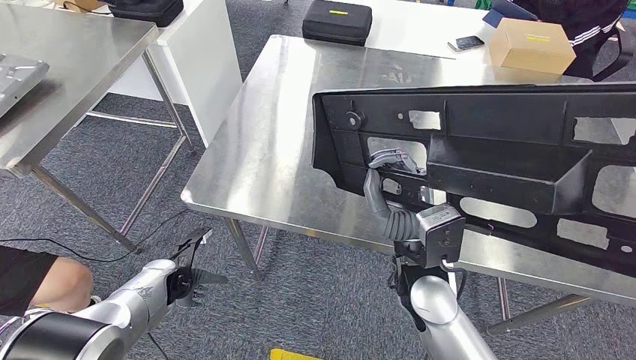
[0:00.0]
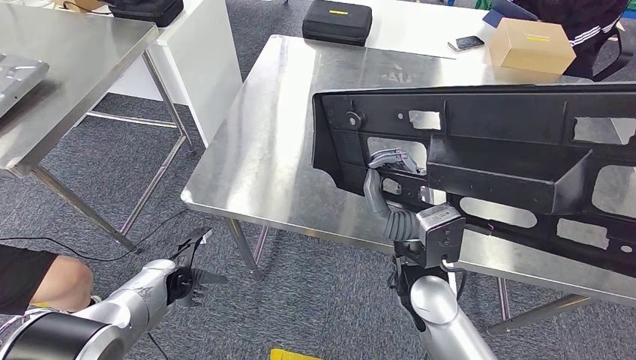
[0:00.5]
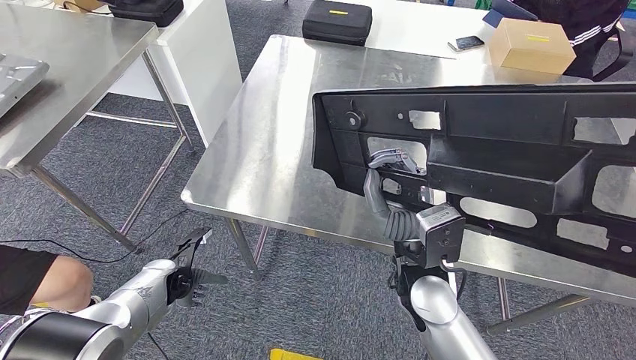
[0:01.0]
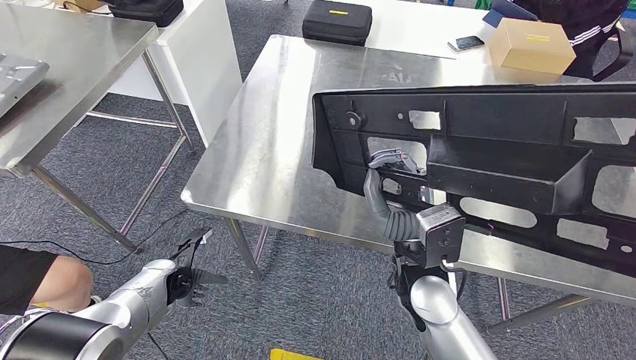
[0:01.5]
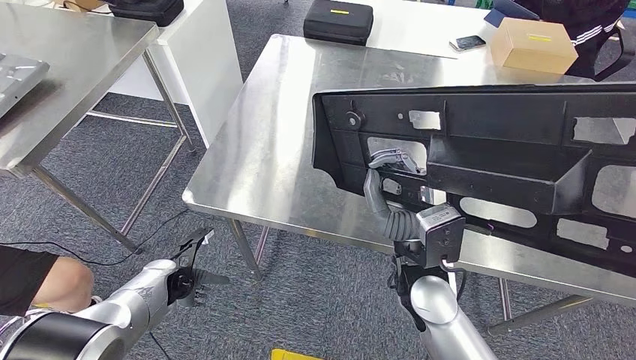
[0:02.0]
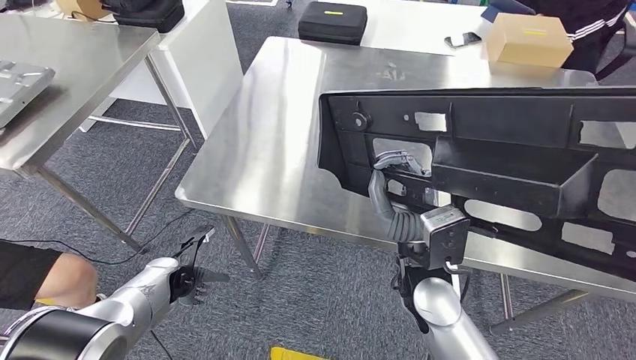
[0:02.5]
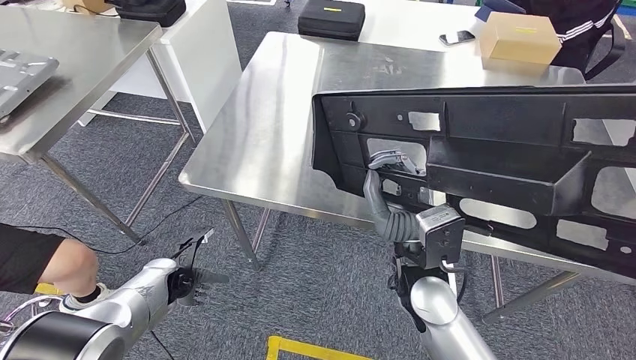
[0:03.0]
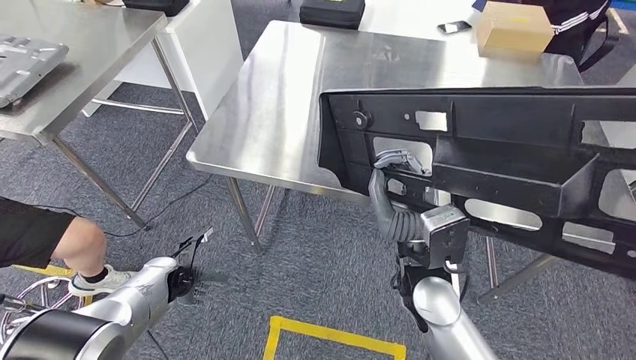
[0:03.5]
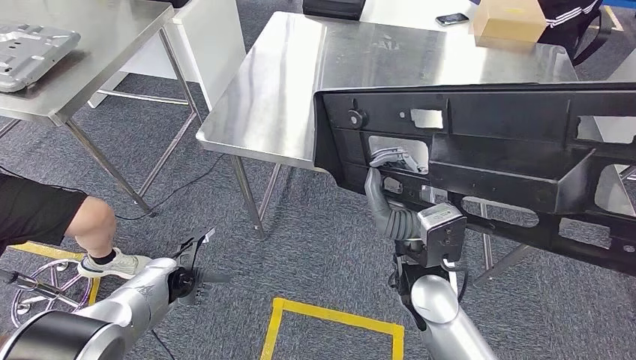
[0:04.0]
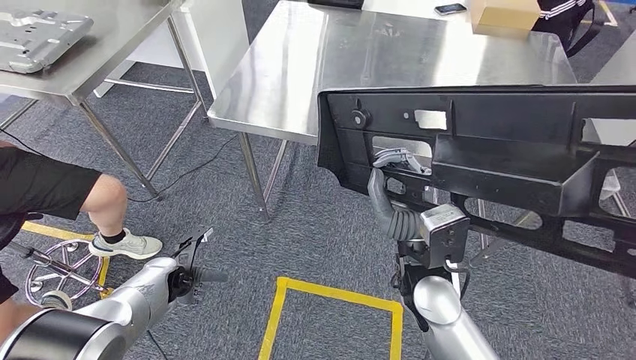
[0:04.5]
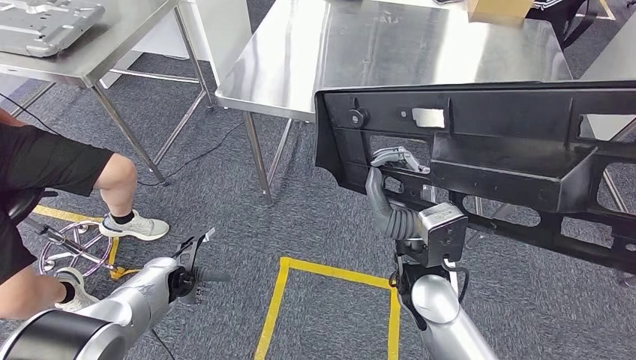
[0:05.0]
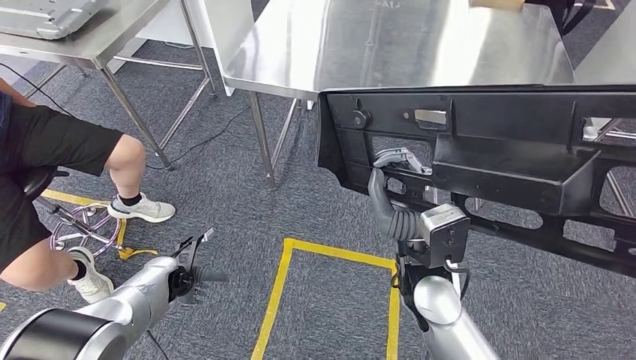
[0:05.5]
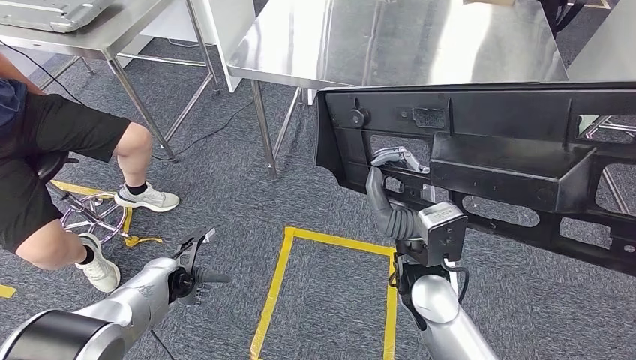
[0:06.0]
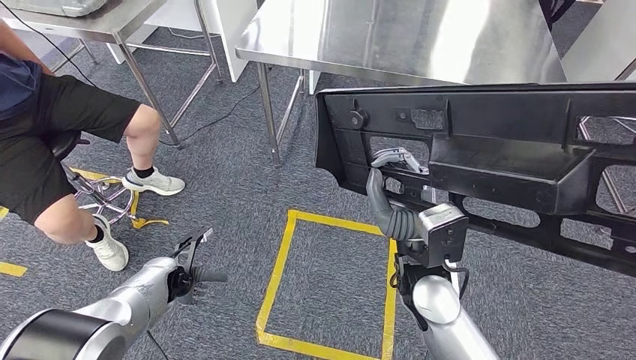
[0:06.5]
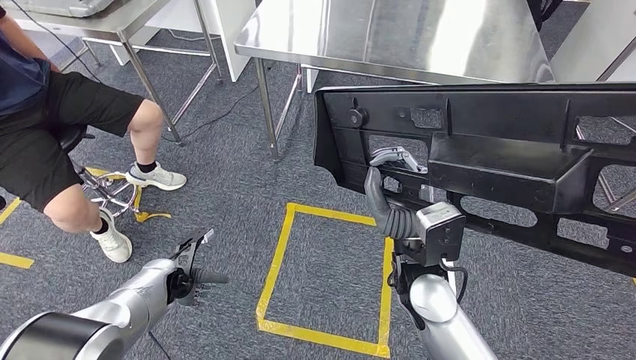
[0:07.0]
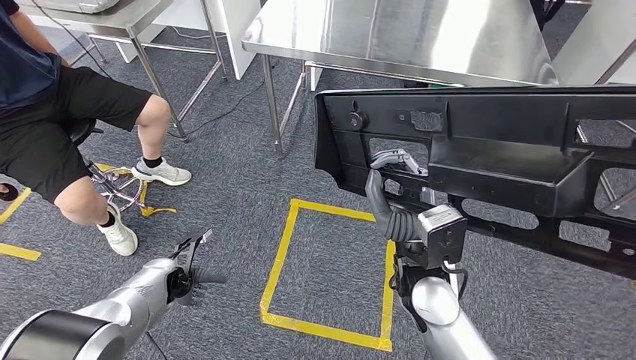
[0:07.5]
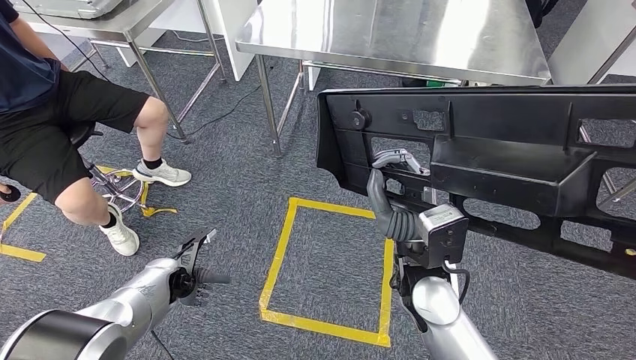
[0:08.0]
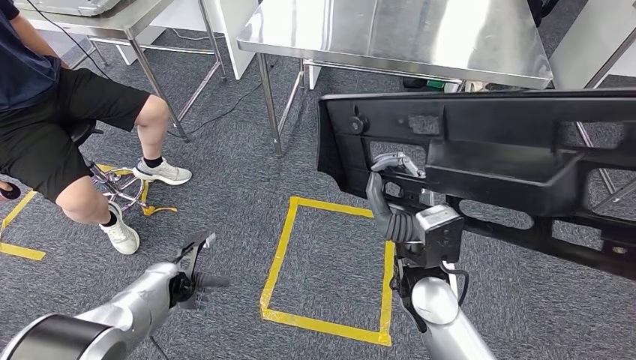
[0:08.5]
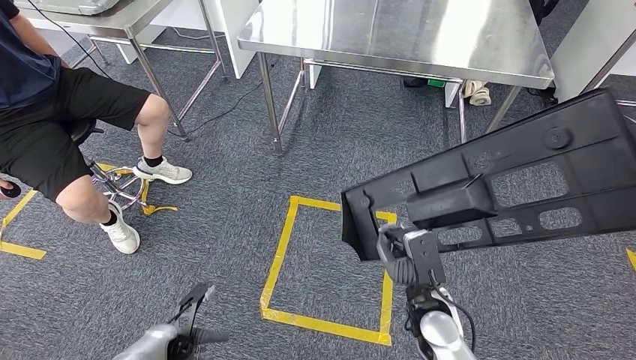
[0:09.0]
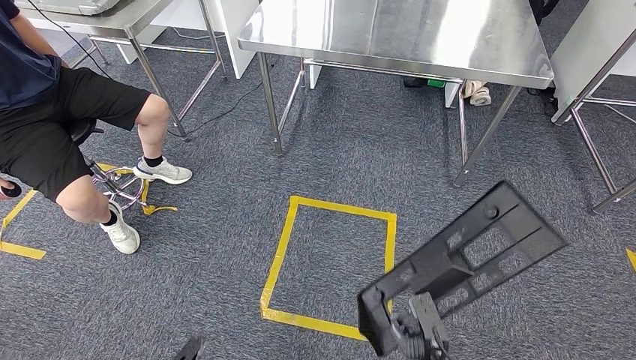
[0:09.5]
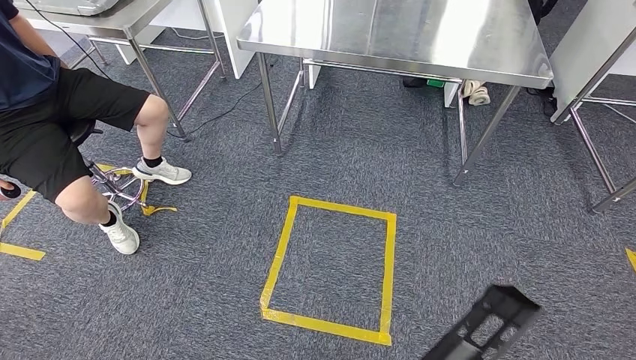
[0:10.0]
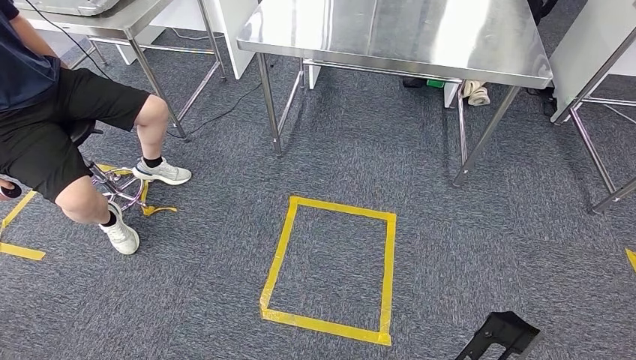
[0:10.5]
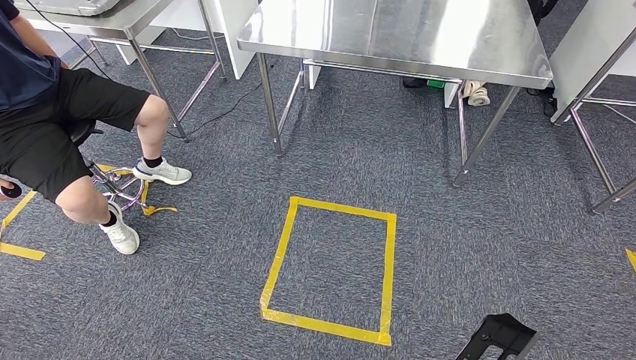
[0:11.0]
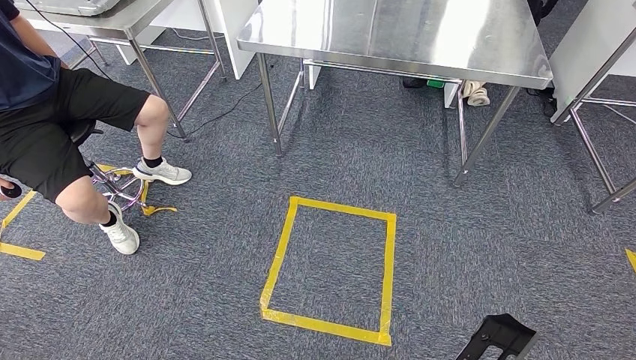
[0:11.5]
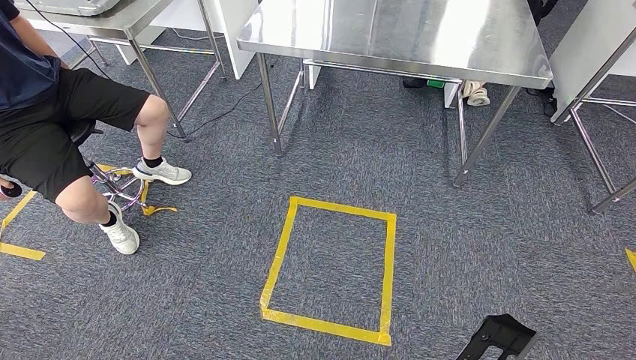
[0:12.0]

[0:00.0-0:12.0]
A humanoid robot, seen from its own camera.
0:00.0 to 0:02.0: Both hands stay about where they are.
0:10.0 to 0:12.0: The hands stay close to where they were, moving slightly.

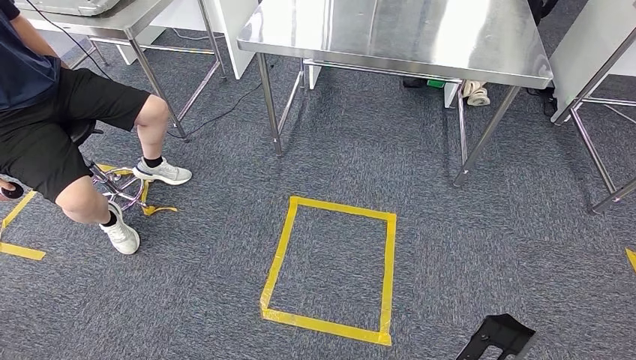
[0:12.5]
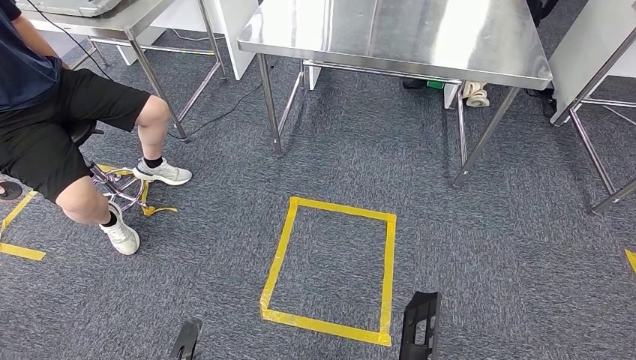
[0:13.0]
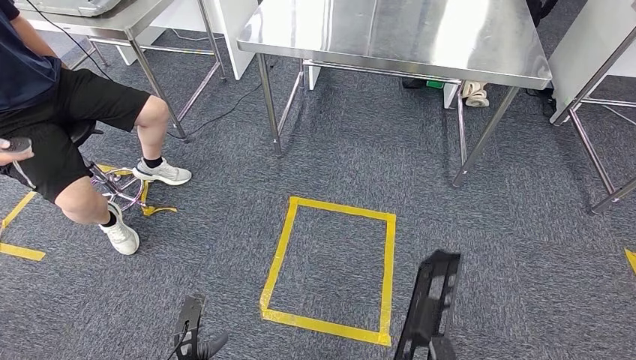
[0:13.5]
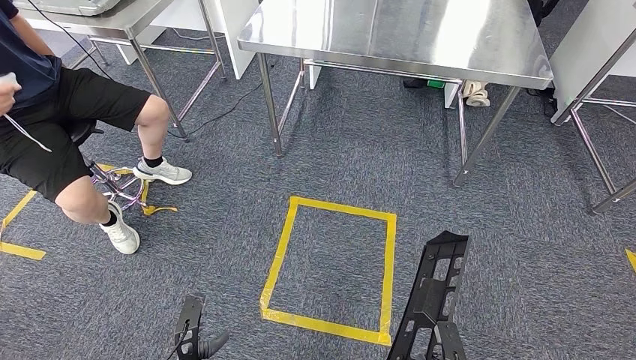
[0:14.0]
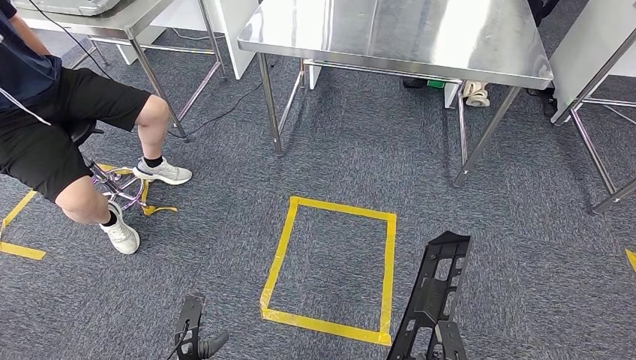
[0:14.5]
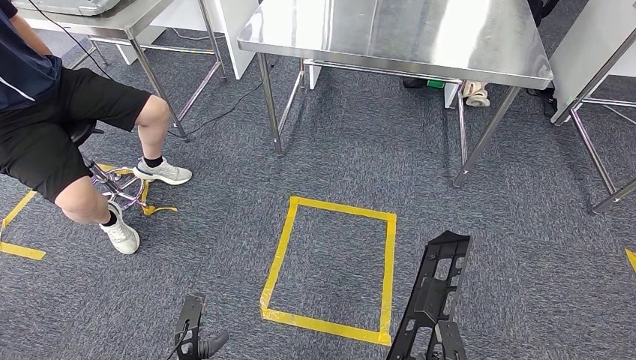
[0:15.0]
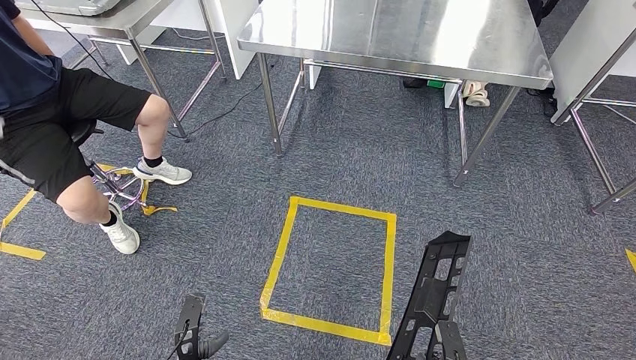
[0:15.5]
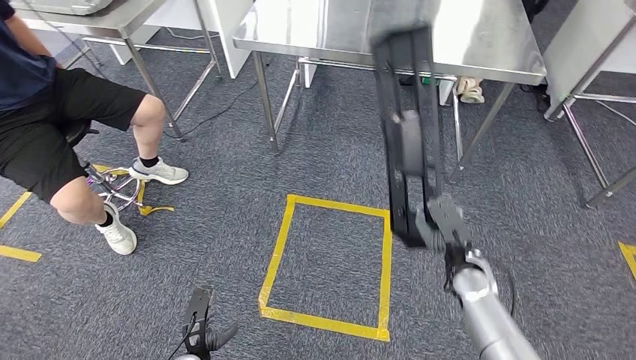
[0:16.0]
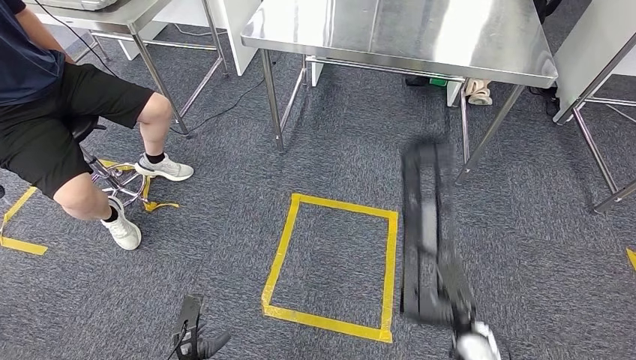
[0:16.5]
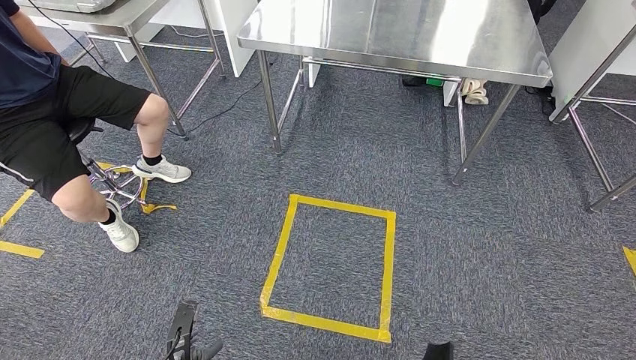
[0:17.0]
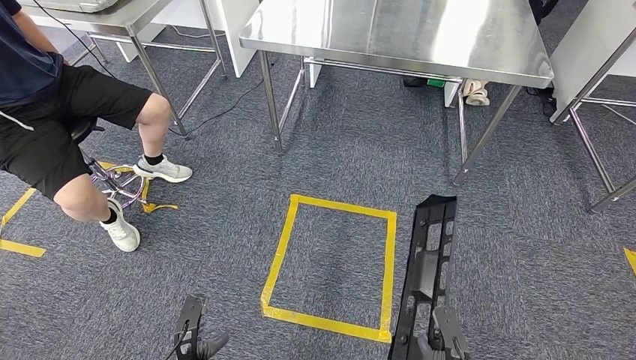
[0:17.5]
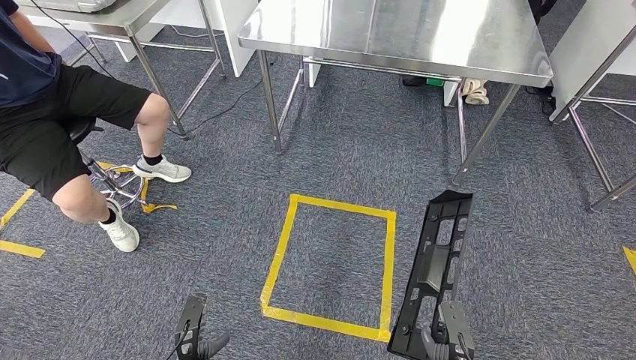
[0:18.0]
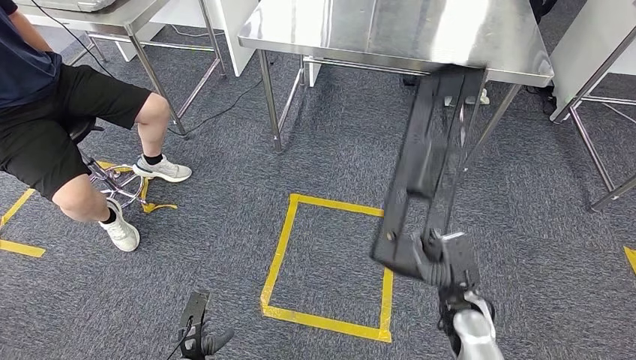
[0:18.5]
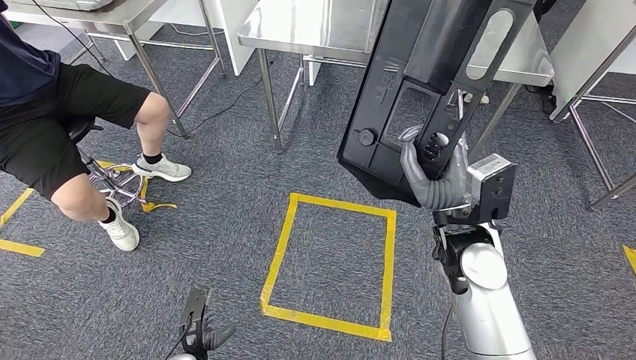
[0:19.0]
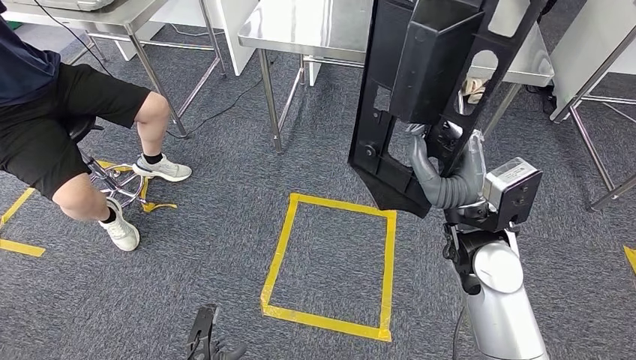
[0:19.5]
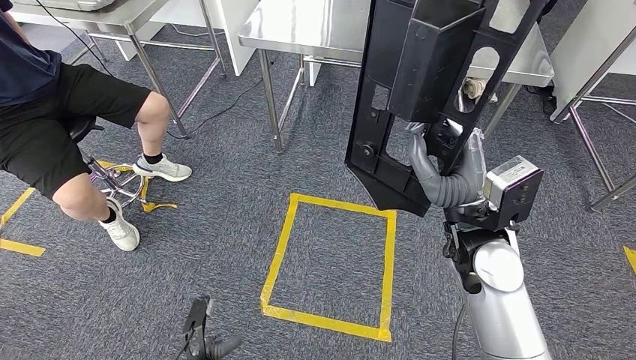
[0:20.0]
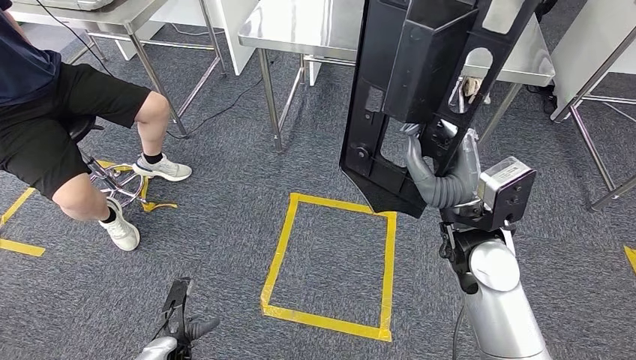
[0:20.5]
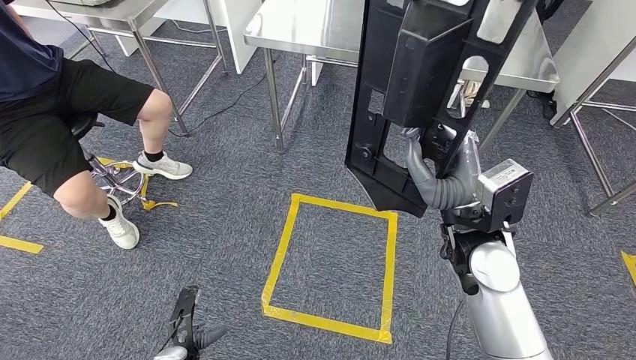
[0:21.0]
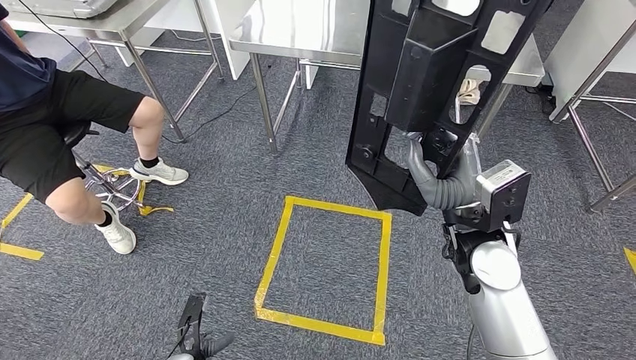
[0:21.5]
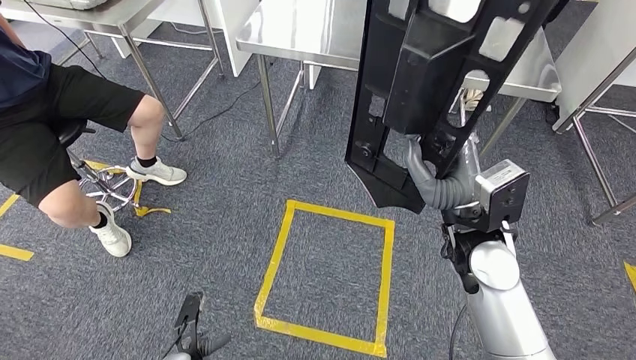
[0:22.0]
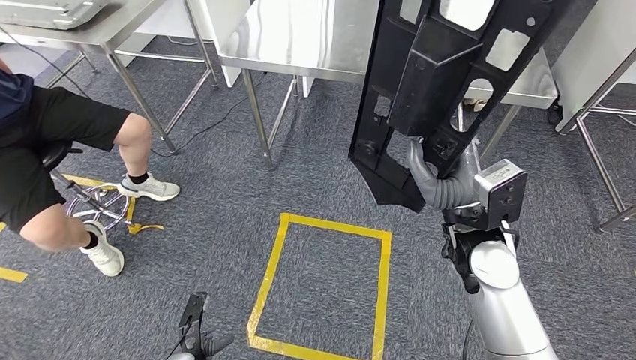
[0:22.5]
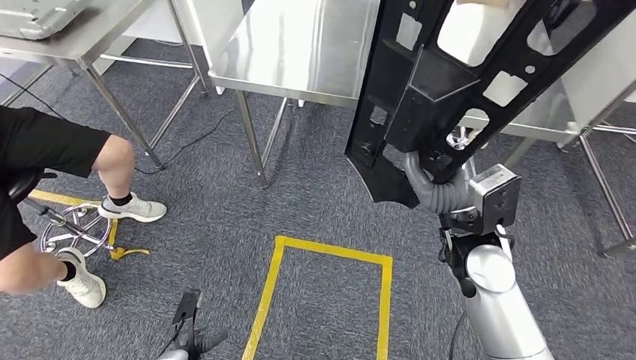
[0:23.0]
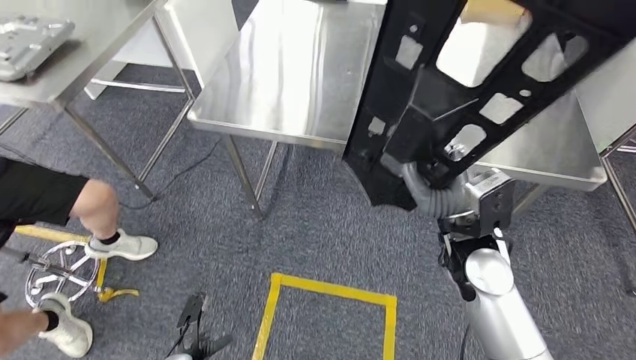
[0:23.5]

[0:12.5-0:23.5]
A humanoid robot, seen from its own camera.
0:12.5 to 0:14.5: Both hands travel together forward, about 15 cm.
